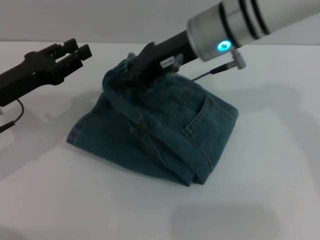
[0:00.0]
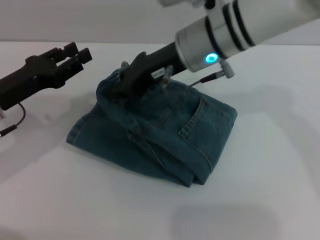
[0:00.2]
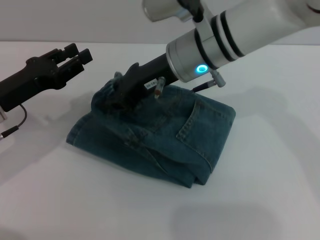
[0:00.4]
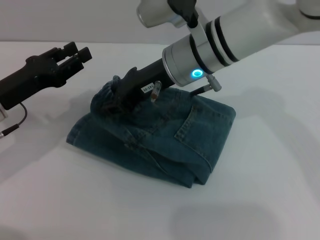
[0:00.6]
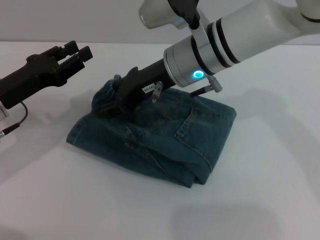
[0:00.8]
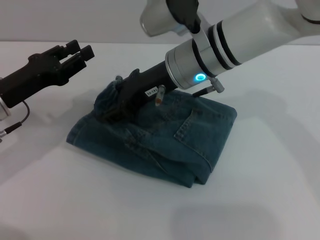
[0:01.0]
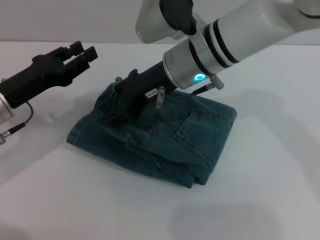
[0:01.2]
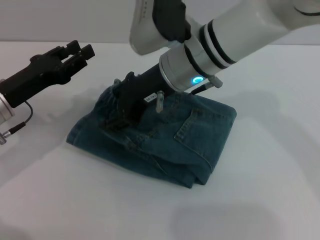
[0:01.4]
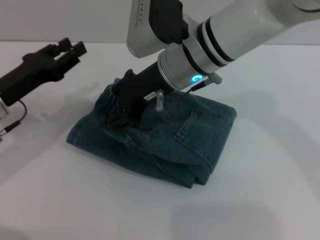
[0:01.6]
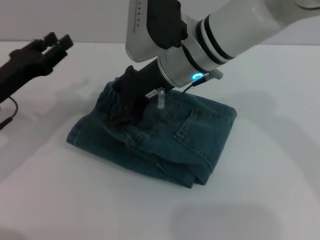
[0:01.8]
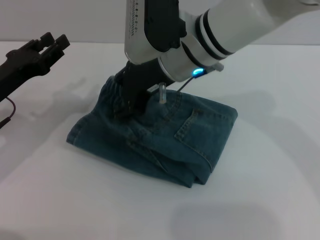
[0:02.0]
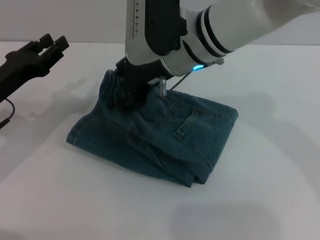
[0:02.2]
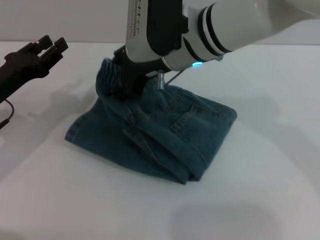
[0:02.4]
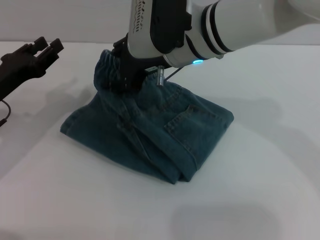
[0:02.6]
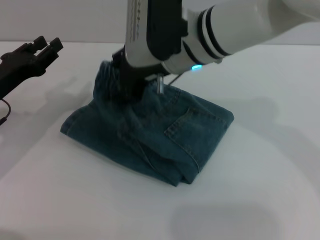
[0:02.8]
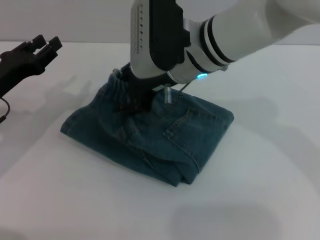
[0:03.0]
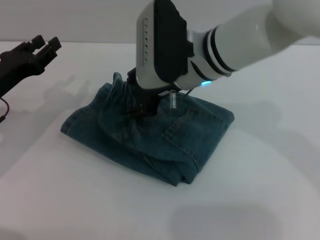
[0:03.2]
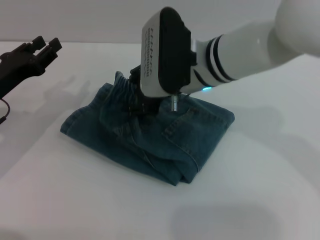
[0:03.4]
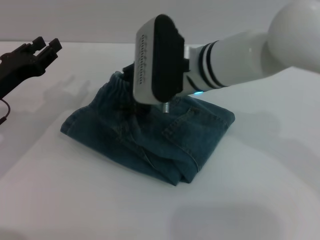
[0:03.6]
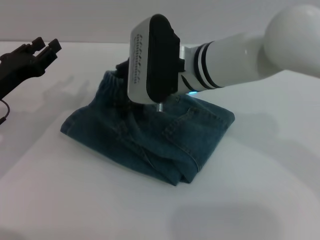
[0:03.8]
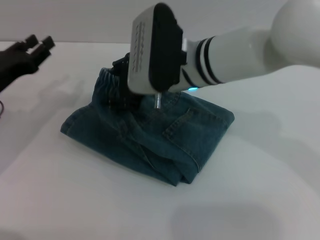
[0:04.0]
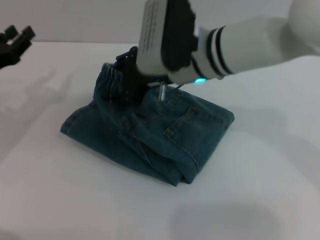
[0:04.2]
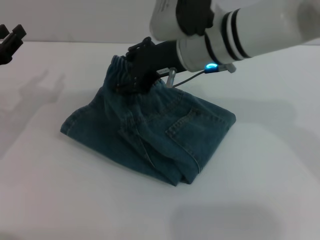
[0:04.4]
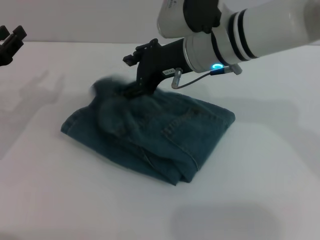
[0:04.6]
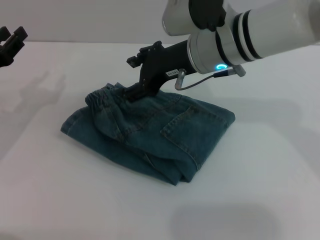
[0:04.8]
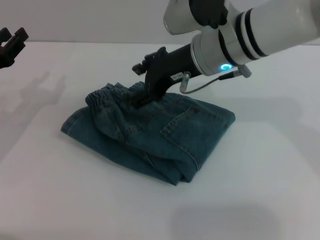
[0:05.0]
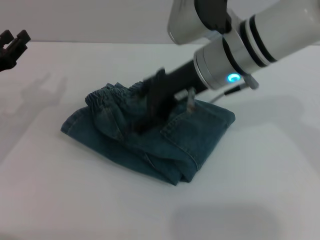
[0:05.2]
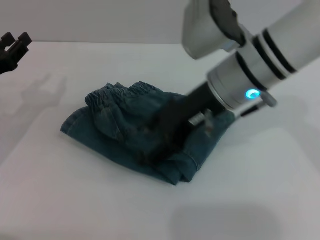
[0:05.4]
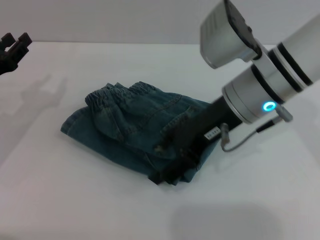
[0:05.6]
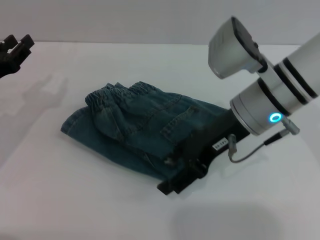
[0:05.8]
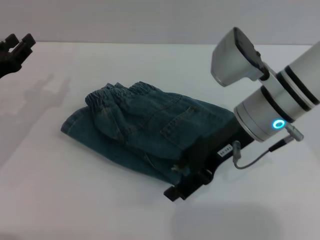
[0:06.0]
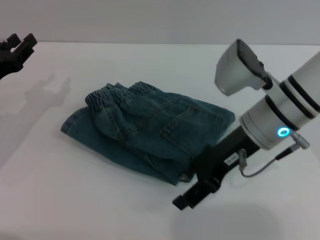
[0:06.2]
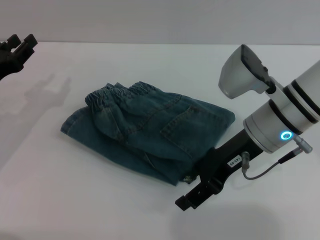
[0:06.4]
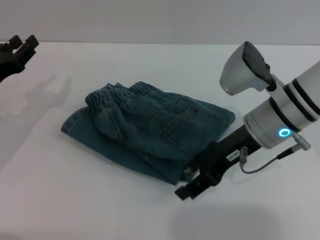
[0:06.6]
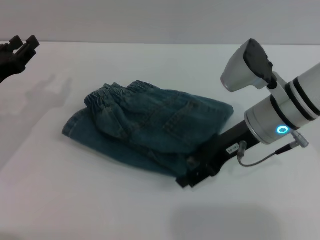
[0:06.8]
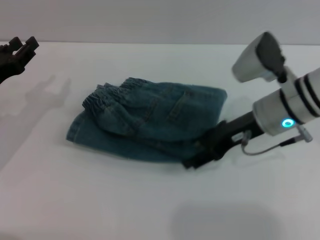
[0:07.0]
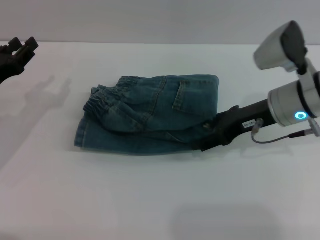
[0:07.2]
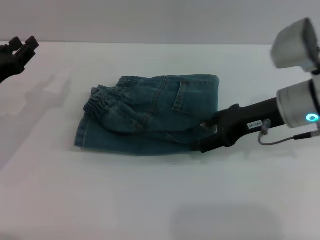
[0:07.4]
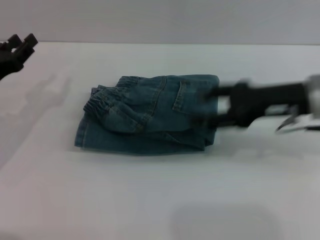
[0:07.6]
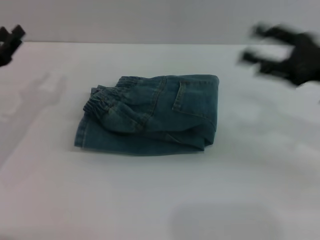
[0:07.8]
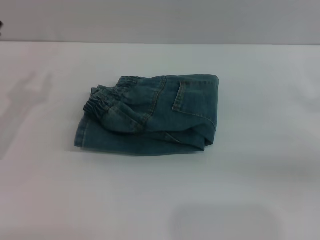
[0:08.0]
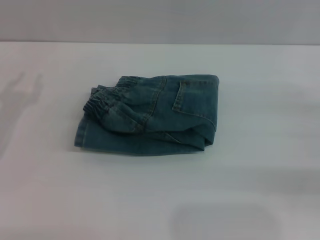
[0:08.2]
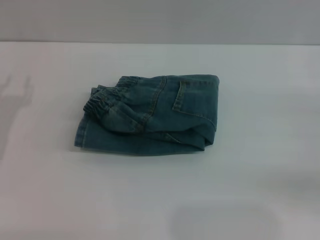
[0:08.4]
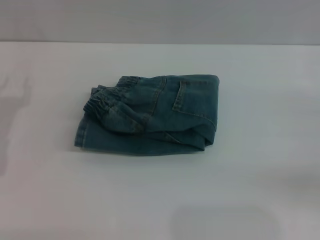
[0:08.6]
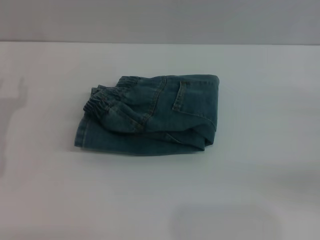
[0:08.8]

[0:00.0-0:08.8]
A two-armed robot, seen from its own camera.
Step, 0:00.0 to 0:05.2: Fold the pants from right to left with the right gripper.
Step, 0:05.6 to 0:07.6: Place the folded trousers onto the center area with the right grippers.
0:00.0 to 0:01.4: The right gripper opens its fingers.
0:03.0 to 0:04.4: The grippers stay close to where they were, moving slightly.
0:04.4 to 0:05.8: The right gripper is displaced to the right by about 5 cm, and opens.
0:05.8 to 0:07.4: The right gripper moves to the right, roughly 5 cm.
0:07.4 to 0:08.8: The right gripper heads to the right, covering some 20 cm.
